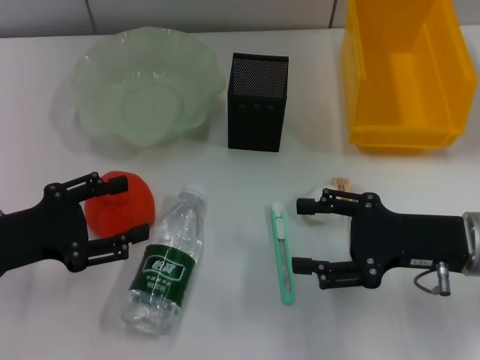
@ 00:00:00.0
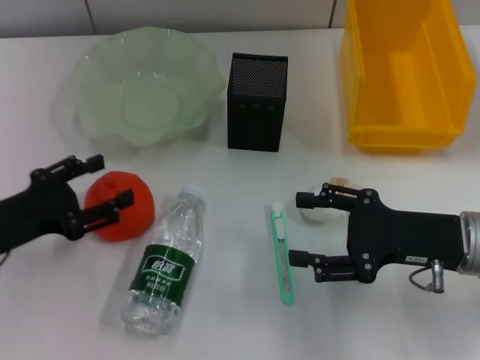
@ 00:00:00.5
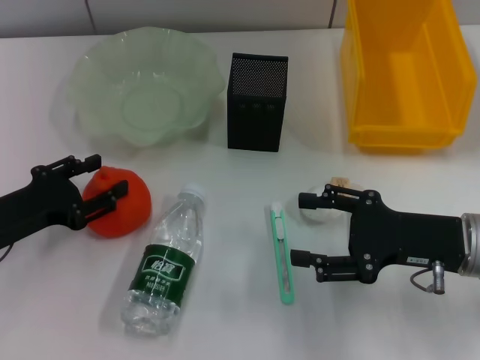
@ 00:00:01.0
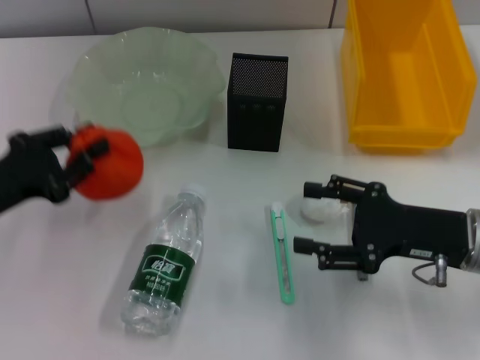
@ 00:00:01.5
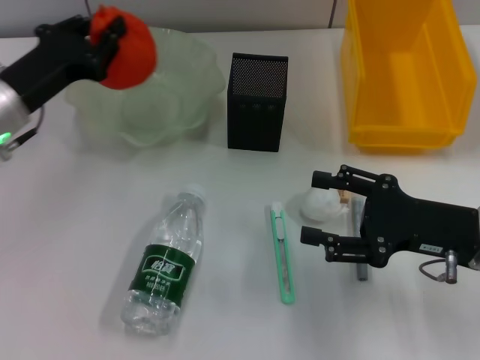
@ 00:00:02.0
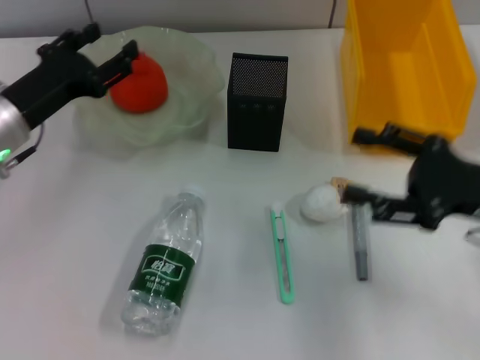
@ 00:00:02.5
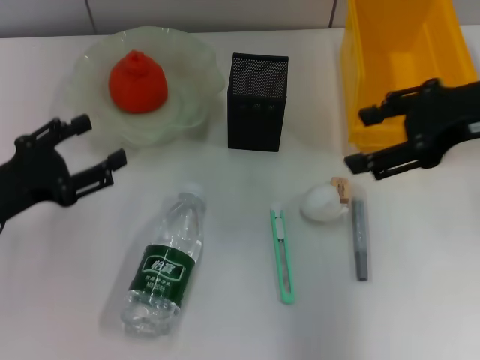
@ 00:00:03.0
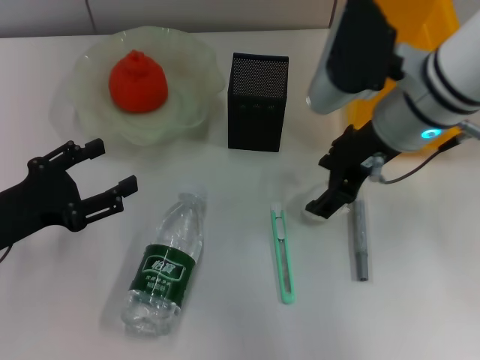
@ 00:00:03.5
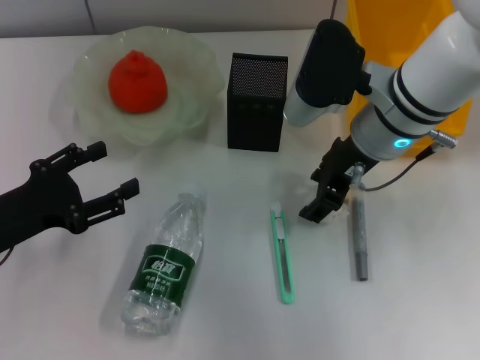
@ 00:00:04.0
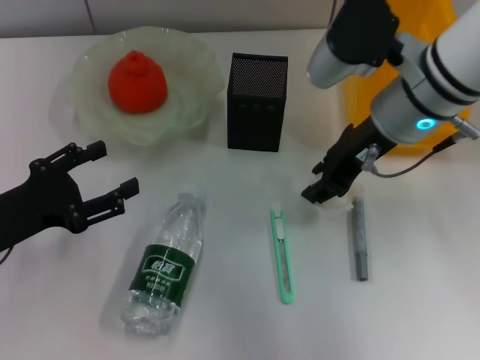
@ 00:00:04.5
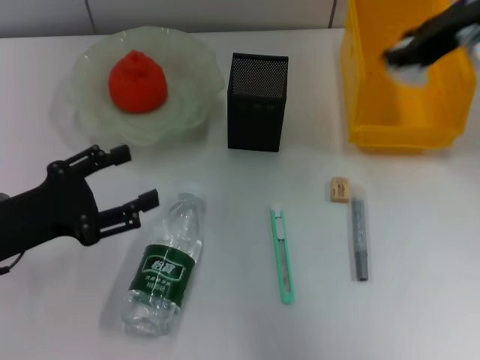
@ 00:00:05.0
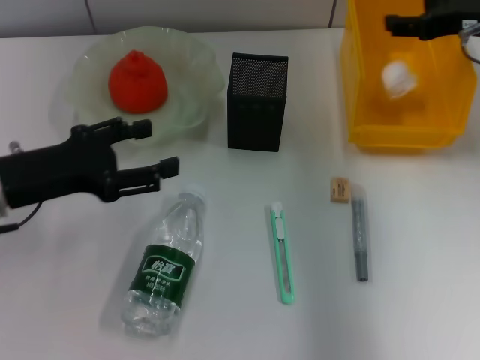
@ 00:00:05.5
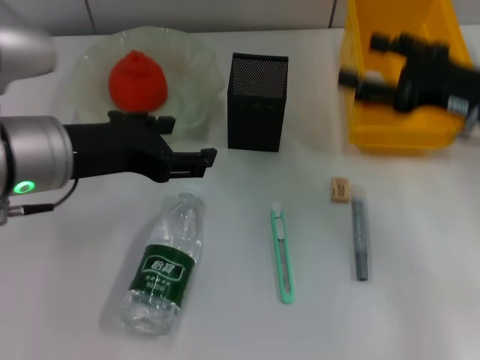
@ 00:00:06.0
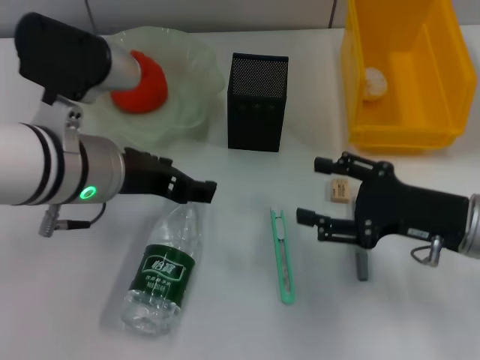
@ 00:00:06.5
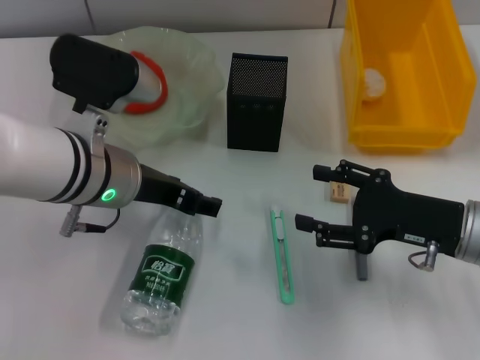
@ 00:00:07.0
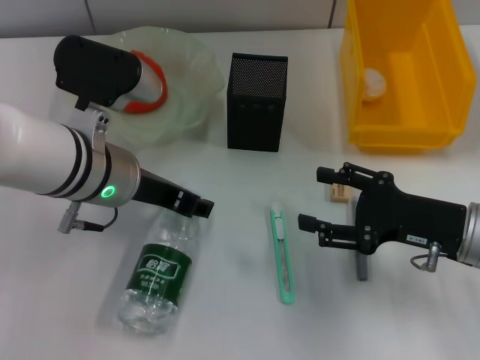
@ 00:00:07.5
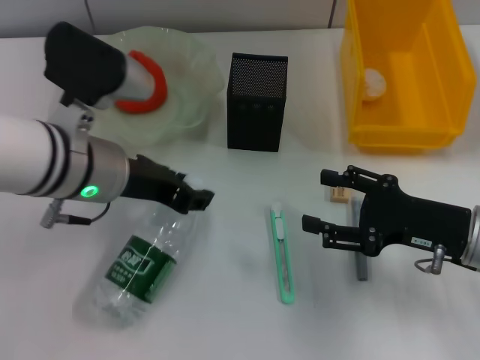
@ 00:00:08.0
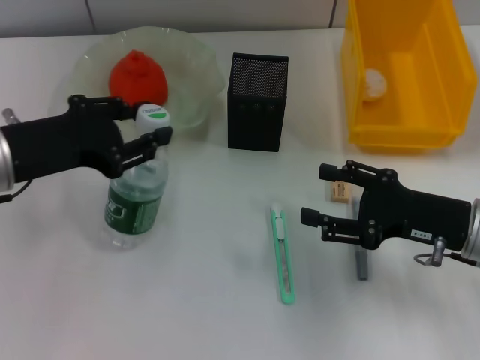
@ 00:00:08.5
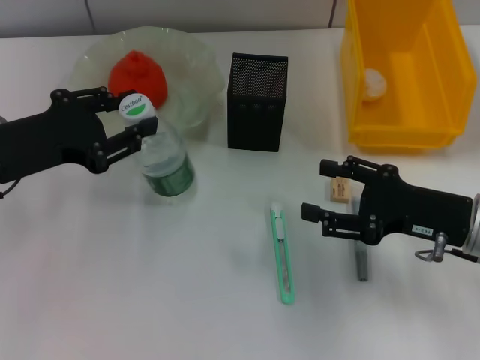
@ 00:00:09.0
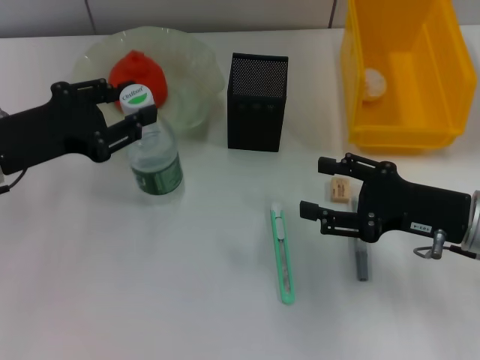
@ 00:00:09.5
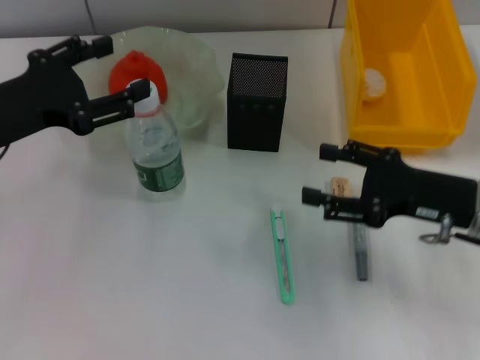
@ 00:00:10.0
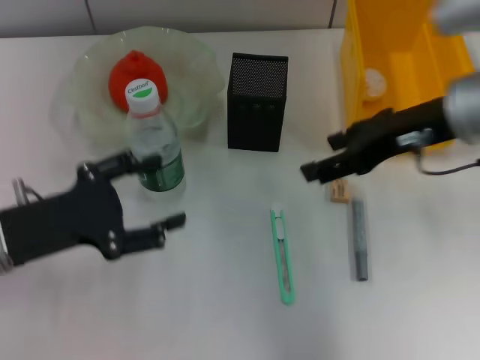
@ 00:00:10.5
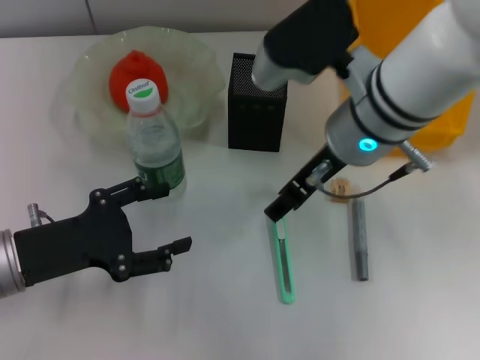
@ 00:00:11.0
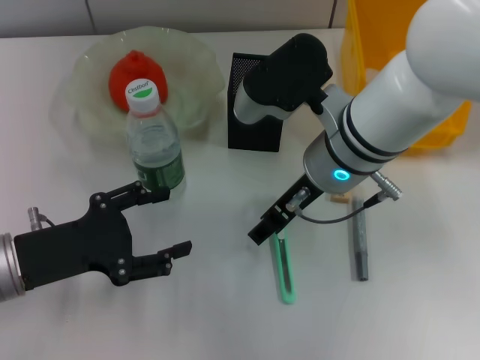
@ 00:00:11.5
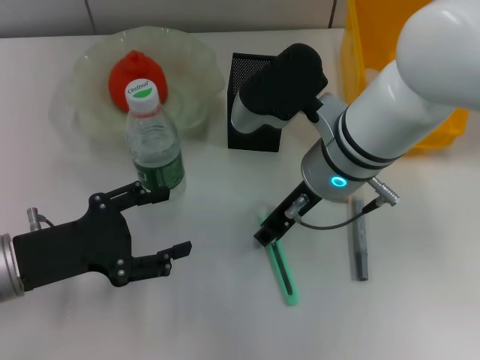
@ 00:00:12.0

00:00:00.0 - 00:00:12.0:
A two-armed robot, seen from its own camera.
Step, 00:00:00.0 - 00:00:01.0: Grab the orange with the left hand.
Step, 00:00:01.5 - 00:00:02.0: Place the orange into the fruit bowl with the left hand.
Step, 00:00:02.5 - 00:00:04.0: Grab the paper ball with the right hand.
Step, 00:00:04.5 - 00:00:05.5: Place the paper ball into the trash can with the right hand.
Step, 00:00:06.0 - 00:00:07.5: Grab the water bottle with the left hand.
Step, 00:00:08.0 - 00:00:09.5: Place the water bottle on the table with the left hand.
00:00:00.0 - 00:00:02.0: The left gripper heads forward, covering roughly 10 cm, and closes its fingers.
00:00:02.0 - 00:00:04.0: The right gripper shifts about 20 cm to the left, forward and upward. Meanwhile the left gripper travels backward by some 10 cm, and opens its fingers.
00:00:04.0 - 00:00:06.0: The right gripper shifts approximately 15 cm to the right, and closes and opens again; the left gripper shifts roughly 15 cm upward and to the right.
00:00:06.0 - 00:00:08.0: The right gripper moves downward and backward, some 10 cm, while the left gripper moves approximately 5 cm, and closes its fingers.
00:00:08.0 - 00:00:10.0: The left gripper goes approximately 10 cm to the left.
00:00:10.0 - 00:00:12.0: The left gripper goes roughly 10 cm downward and backward, and opens its fingers, while the right gripper goes some 15 cm to the left.

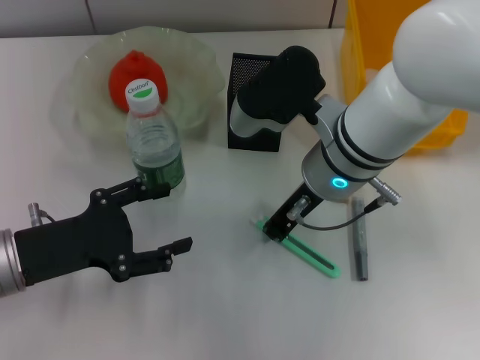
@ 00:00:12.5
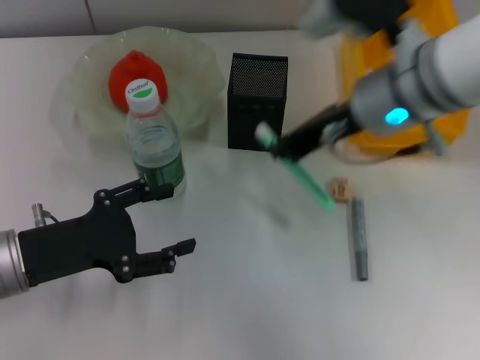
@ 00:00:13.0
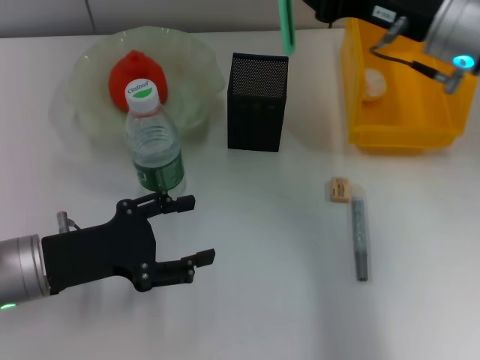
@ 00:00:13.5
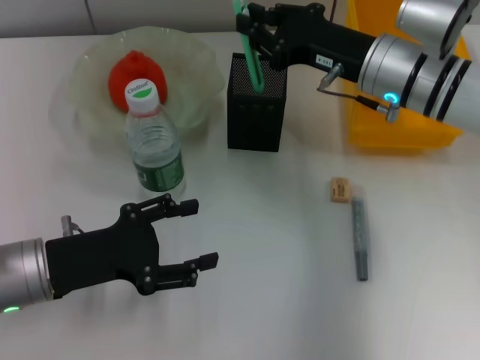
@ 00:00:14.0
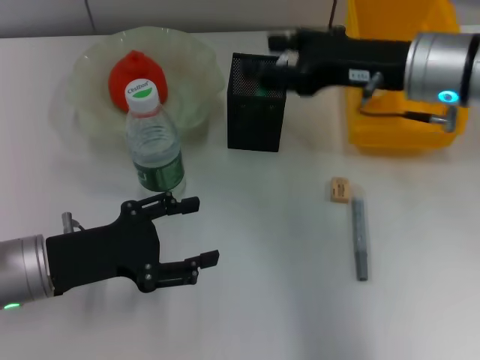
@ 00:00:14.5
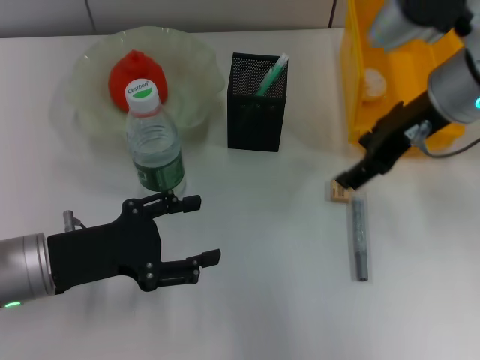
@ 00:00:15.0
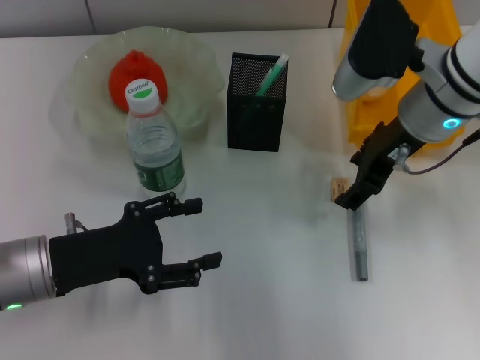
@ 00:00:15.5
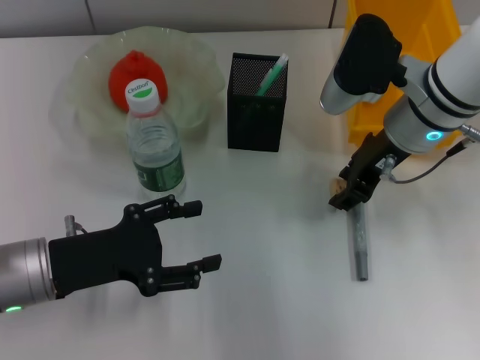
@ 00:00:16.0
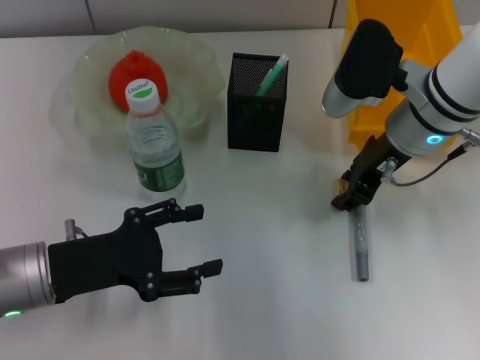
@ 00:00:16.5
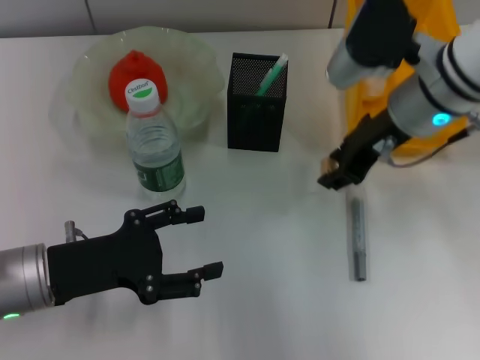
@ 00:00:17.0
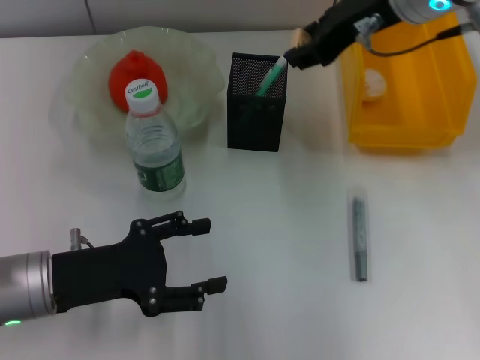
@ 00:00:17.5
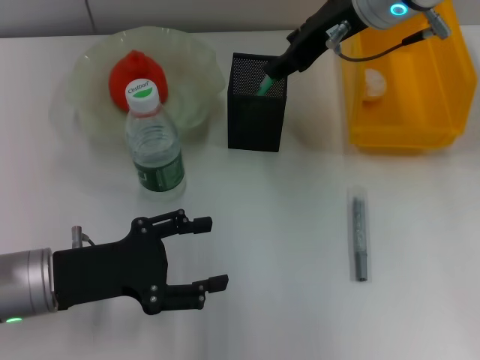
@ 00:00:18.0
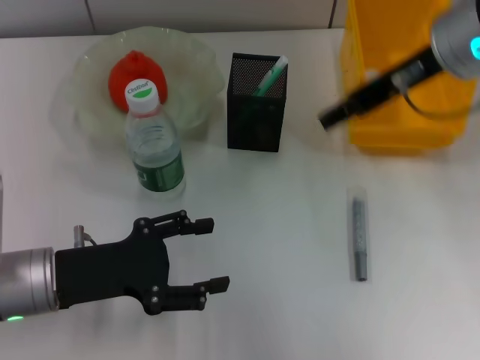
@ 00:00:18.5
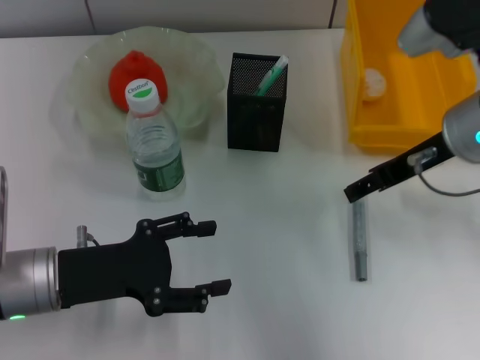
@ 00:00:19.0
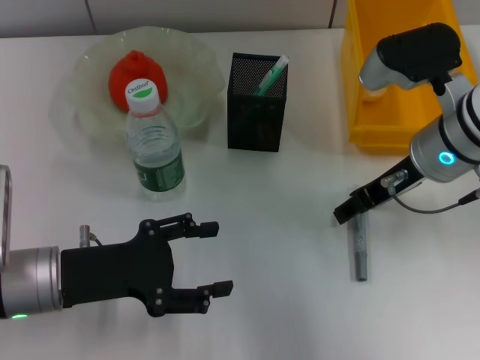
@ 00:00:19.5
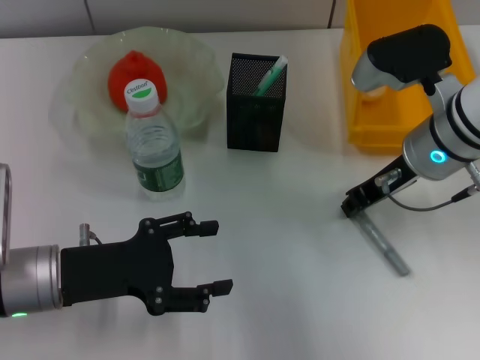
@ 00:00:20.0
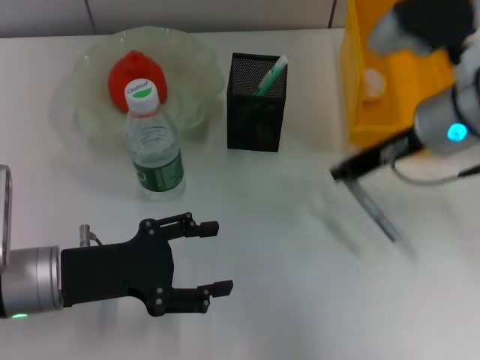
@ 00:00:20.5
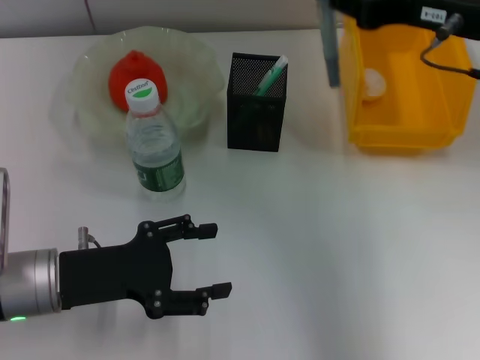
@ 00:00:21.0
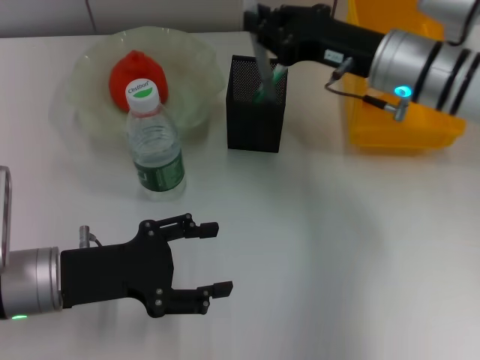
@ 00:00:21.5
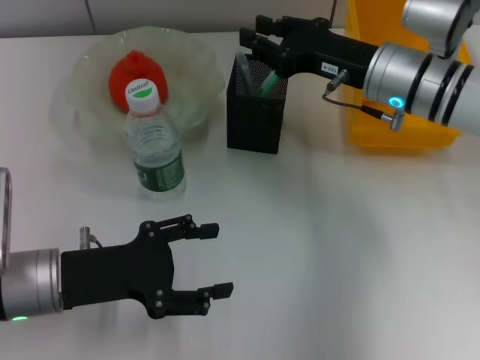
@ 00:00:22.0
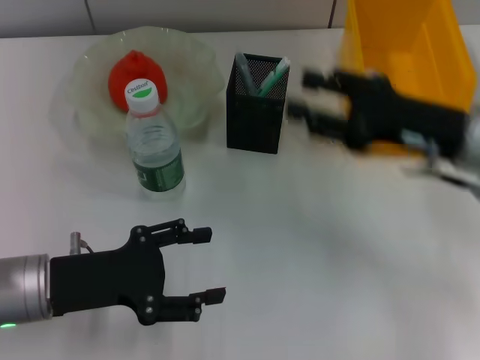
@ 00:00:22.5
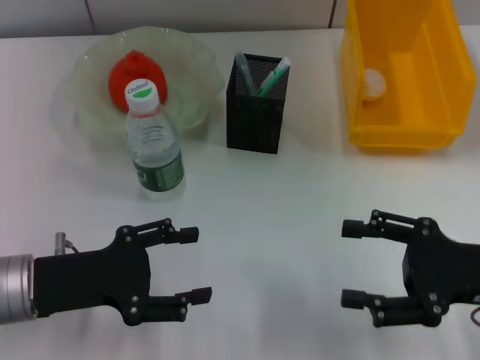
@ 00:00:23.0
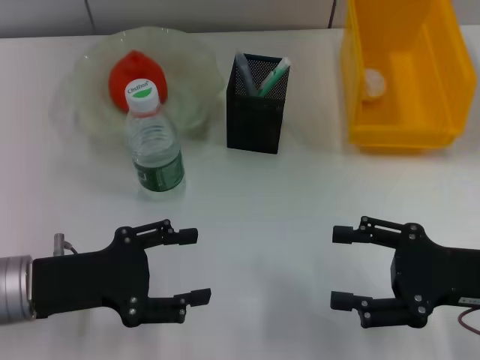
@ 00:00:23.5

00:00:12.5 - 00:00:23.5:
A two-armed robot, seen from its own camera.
Step, 00:00:13.0 - 00:00:14.0: Place the blue utility knife into the pen holder with the right hand.
Step, 00:00:14.5 - 00:00:16.0: Grab the eraser with the right hand.
Step, 00:00:17.0 - 00:00:18.0: Put the eraser into the pen holder with the right hand.
Step, 00:00:18.5 - 00:00:19.5: Grab the gray glue with the right hand.
Step, 00:00:20.0 - 00:00:21.5: Place the gray glue into the pen holder with the right hand.
00:00:12.5 - 00:00:14.5: The right gripper goes some 10 cm to the right, and opens up.
00:00:16.0 - 00:00:18.0: The right gripper travels upward by approximately 10 cm.
00:00:18.0 - 00:00:20.0: The right gripper heads downward, backward and to the right, covering some 15 cm.
00:00:20.0 - 00:00:21.5: The right gripper travels upward and back again, approximately 10 cm each way, and closes its fingers.
00:00:21.5 - 00:00:23.5: The right gripper shifts approximately 20 cm backward and to the right, and opens its fingers.
